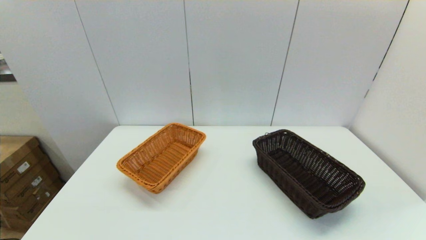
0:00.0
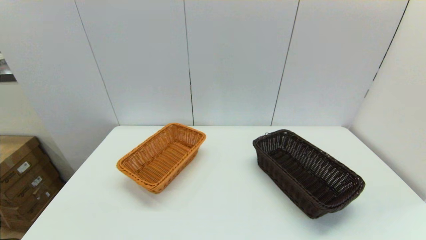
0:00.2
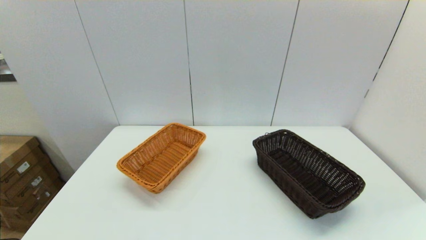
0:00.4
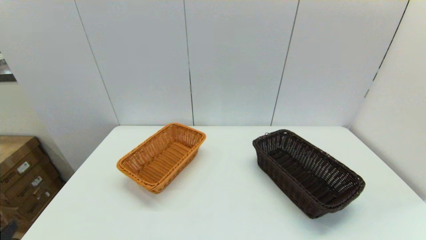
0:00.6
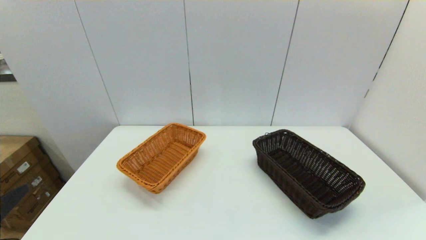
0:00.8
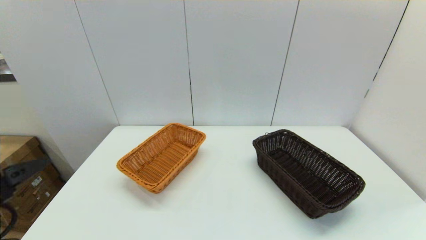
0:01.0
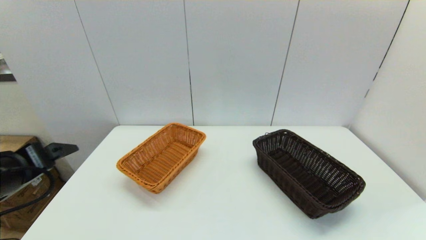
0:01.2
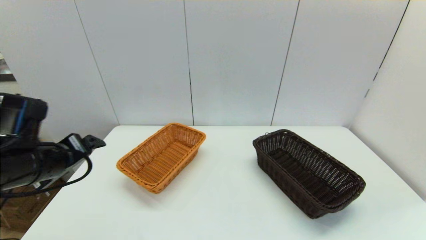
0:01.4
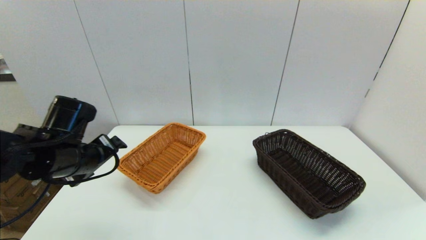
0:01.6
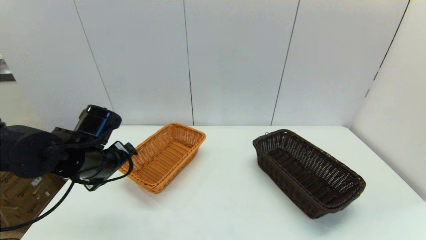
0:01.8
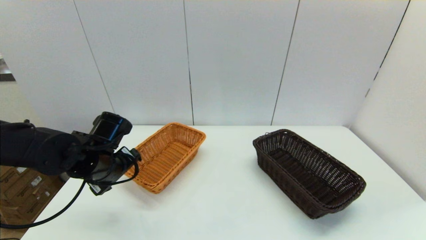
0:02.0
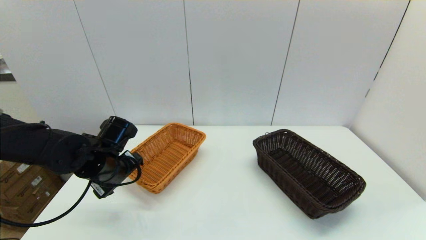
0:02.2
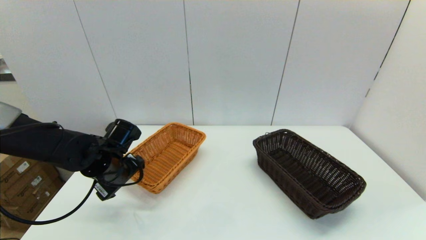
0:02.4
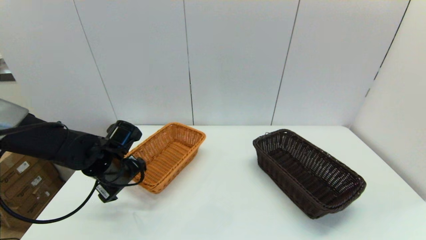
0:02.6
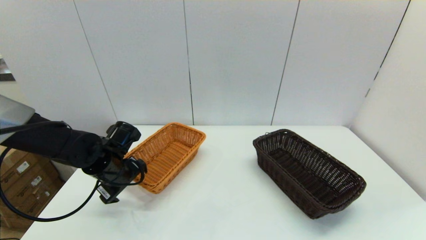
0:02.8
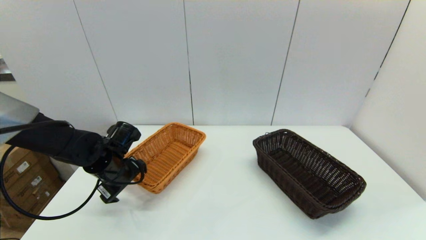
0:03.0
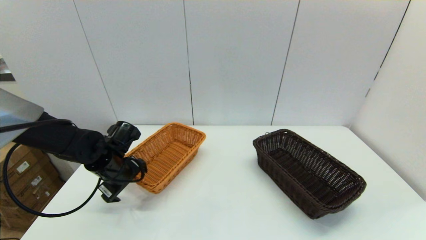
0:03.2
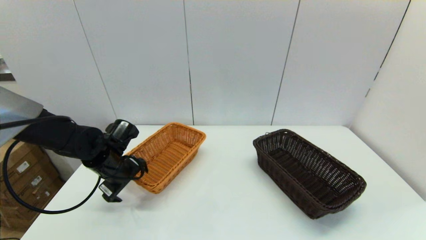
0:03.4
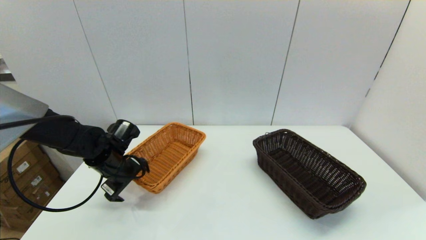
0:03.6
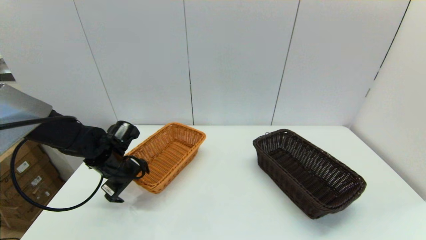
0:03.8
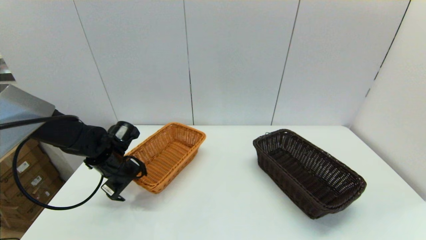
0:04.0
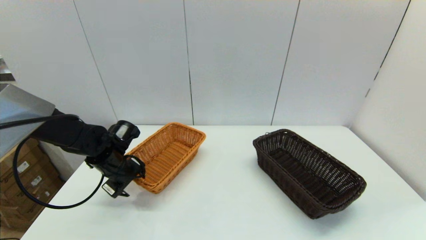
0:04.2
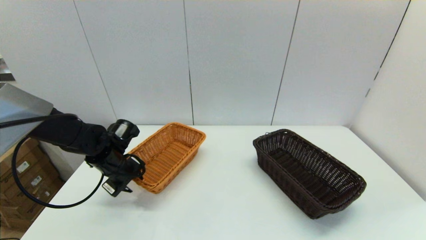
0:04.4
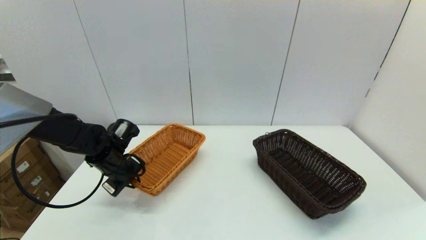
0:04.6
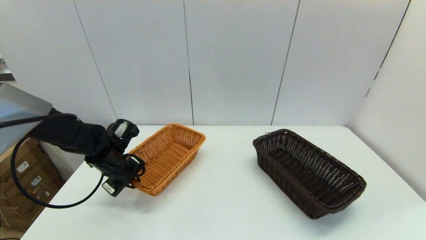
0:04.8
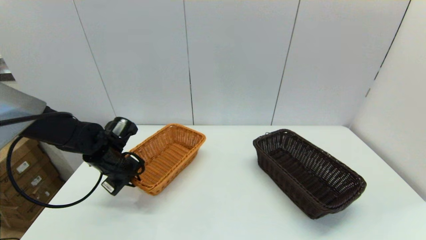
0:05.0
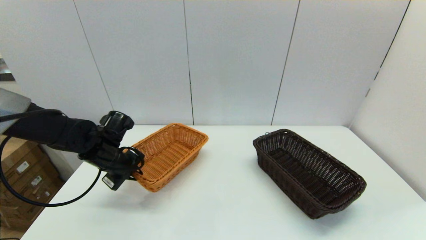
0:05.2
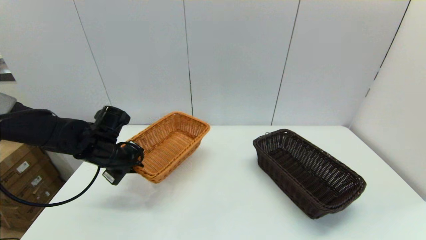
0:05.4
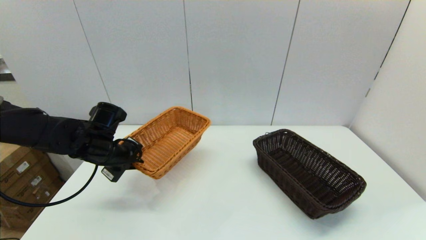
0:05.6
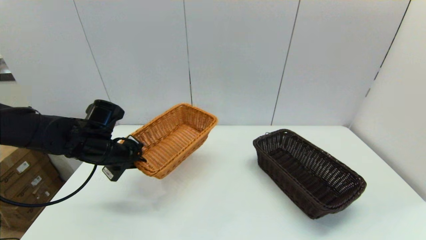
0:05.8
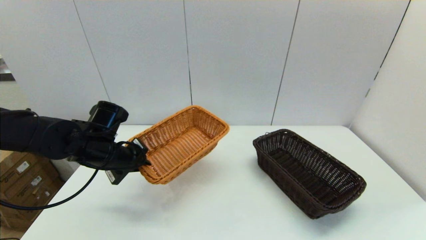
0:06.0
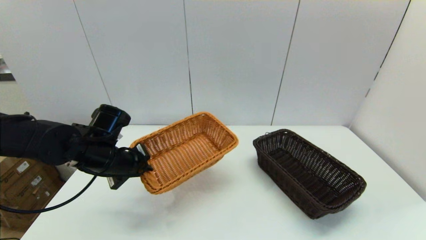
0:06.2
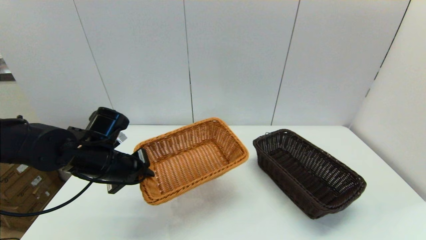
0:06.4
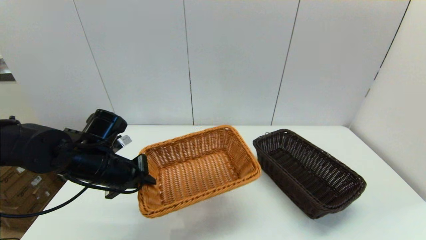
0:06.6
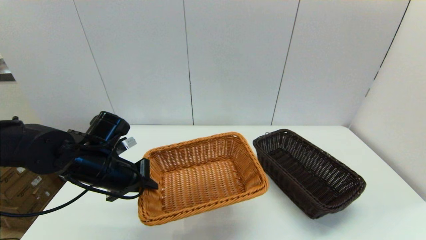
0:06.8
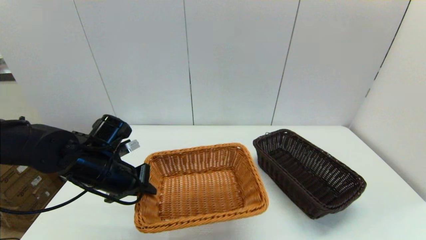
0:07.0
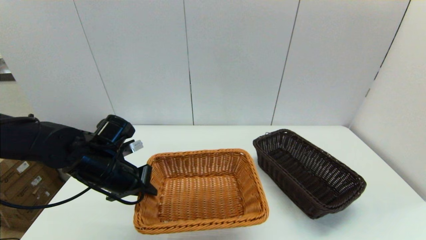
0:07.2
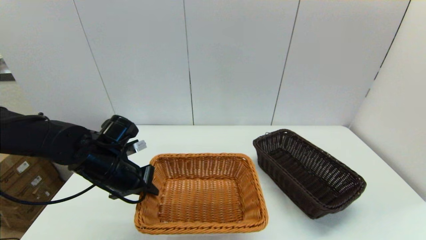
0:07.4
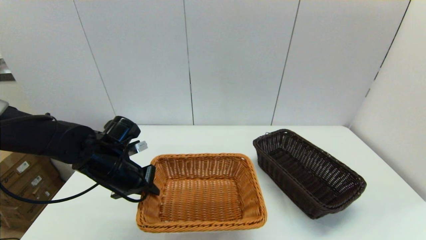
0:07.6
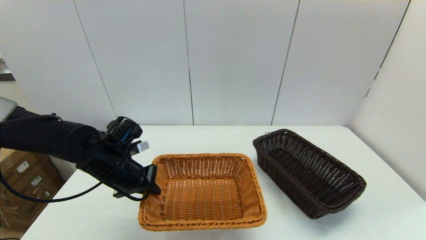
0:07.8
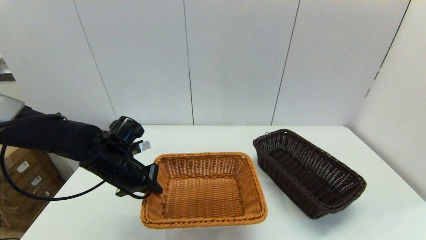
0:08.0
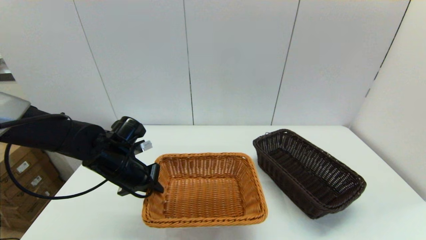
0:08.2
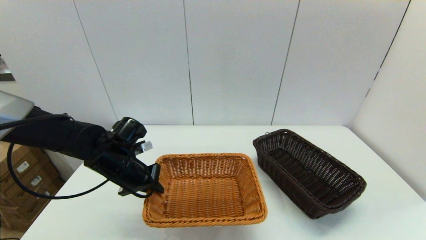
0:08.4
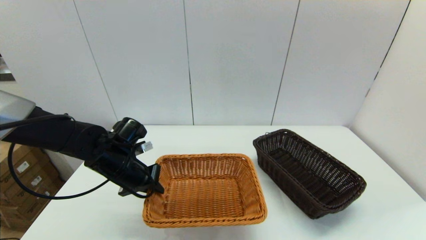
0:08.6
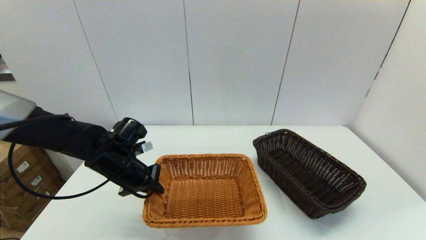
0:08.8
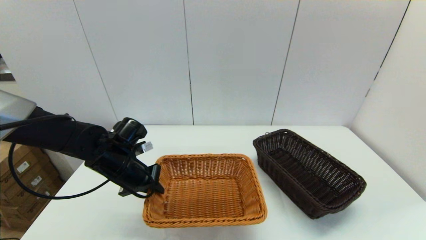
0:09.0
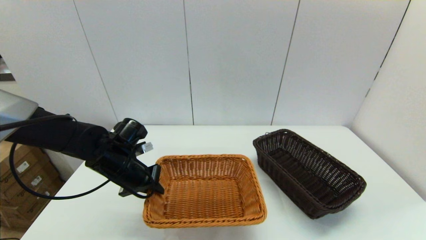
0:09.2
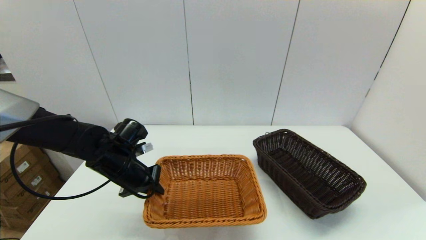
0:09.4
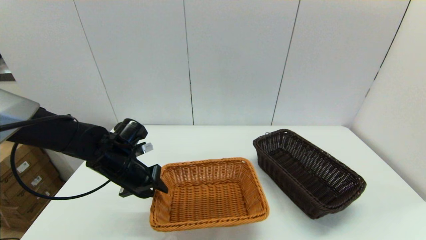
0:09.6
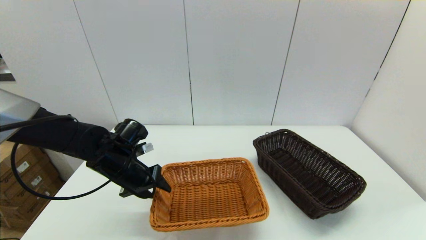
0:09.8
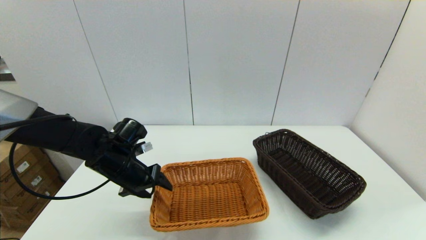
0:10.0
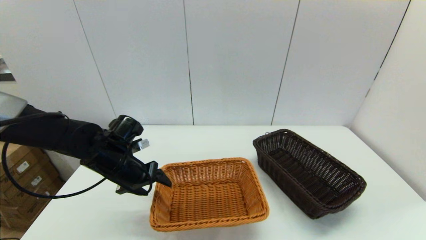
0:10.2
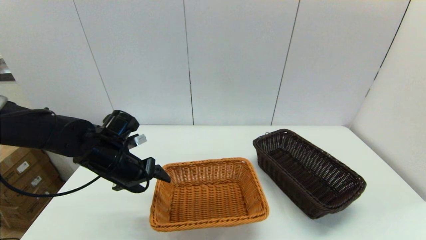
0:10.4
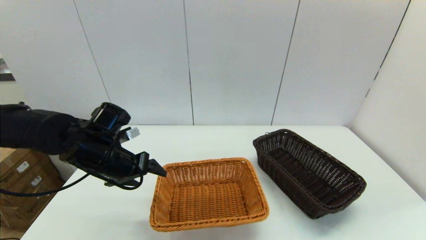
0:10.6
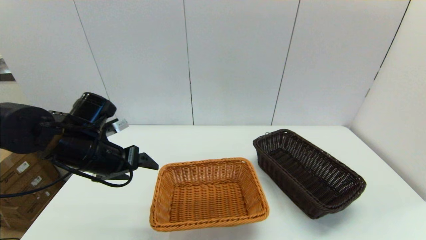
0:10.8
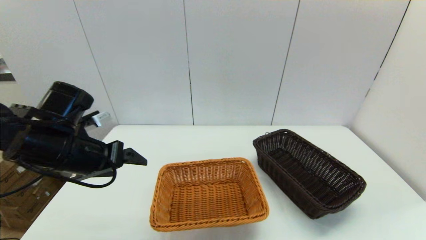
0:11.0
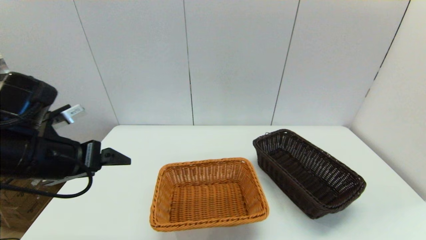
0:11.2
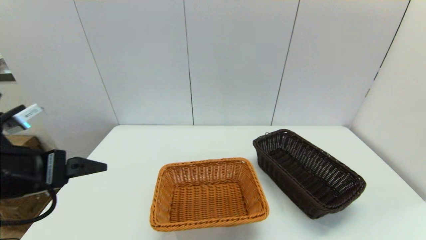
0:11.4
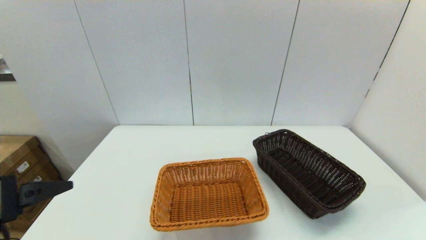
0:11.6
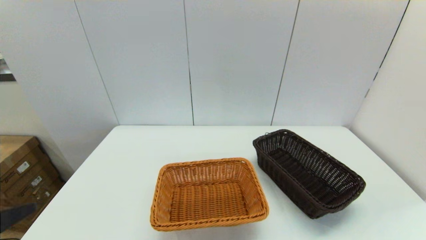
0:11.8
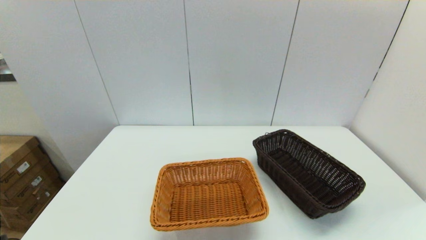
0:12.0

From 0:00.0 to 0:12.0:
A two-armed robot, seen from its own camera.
Task of the whole recording: stack a basket on top of another basket.
Step, from 0:00.0 to 0:04.8: Grasp the light basket with the left gripper.
Step, from 0:05.0 to 0:10.4: Place the light basket on the middle of the table with the left gripper.
From 0:00.0 to 0:01.6: The left gripper travels forward by approximately 25 cm.
From 0:01.6 to 0:03.0: The left gripper moves downward and forward, approximately 10 cm.
From 0:03.0 to 0:04.4: The left gripper closes its fingers.
From 0:04.4 to 0:06.0: The left gripper moves upward, some 5 cm.
From 0:07.6 to 0:09.0: There are only small adjustments of the grippers.
From 0:09.0 to 0:10.4: The left gripper opens.
From 0:10.4 to 0:12.0: The left gripper travels backward by about 30 cm.

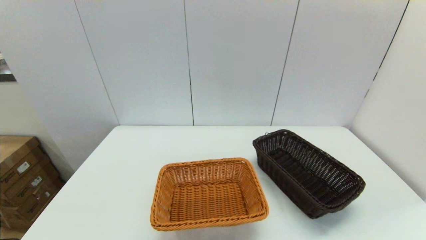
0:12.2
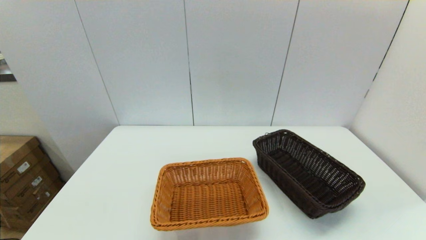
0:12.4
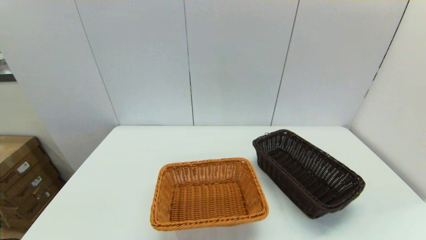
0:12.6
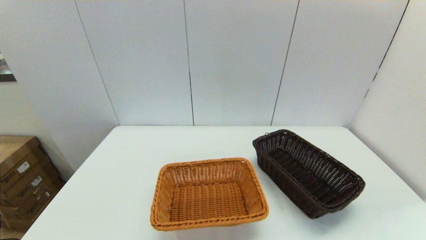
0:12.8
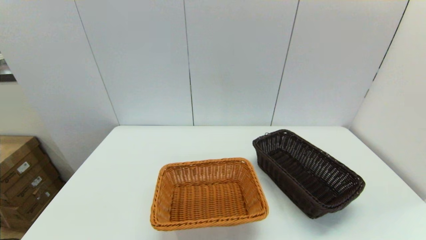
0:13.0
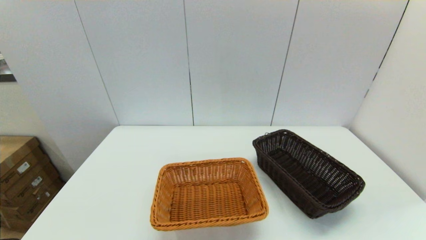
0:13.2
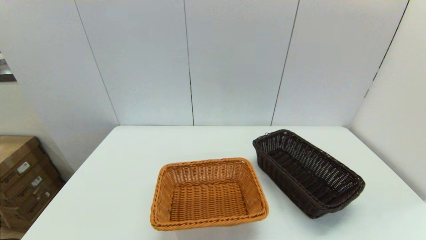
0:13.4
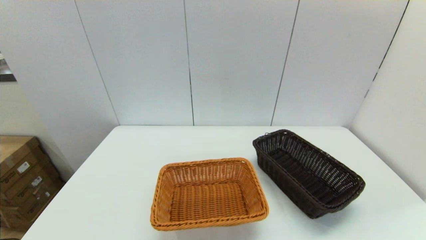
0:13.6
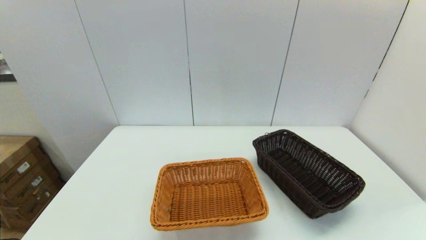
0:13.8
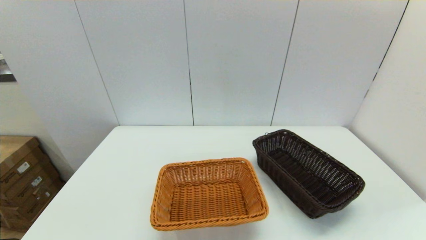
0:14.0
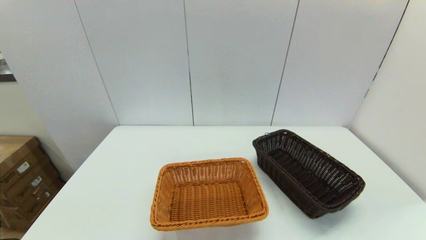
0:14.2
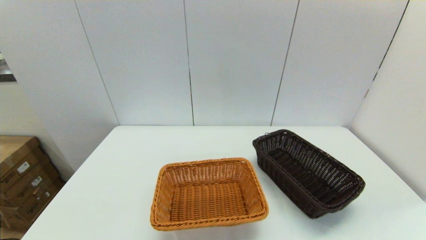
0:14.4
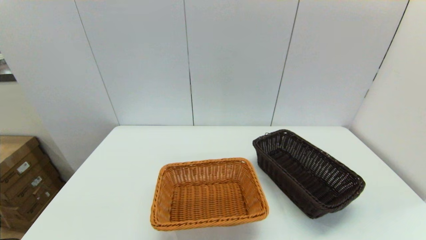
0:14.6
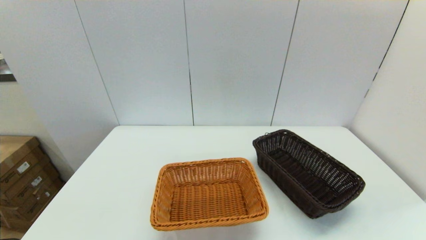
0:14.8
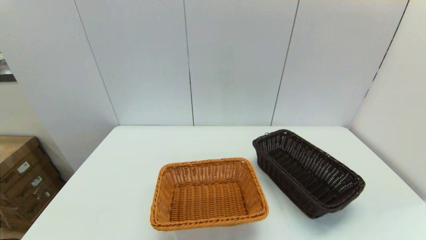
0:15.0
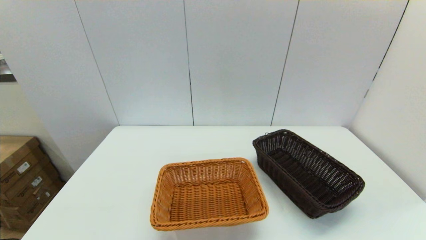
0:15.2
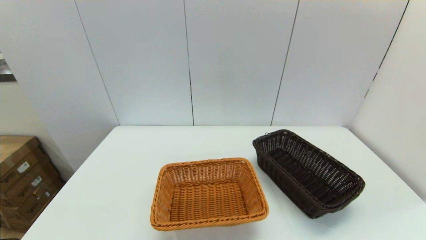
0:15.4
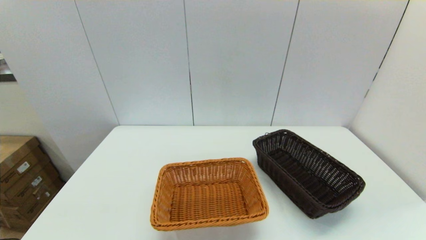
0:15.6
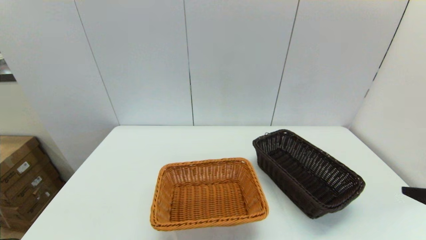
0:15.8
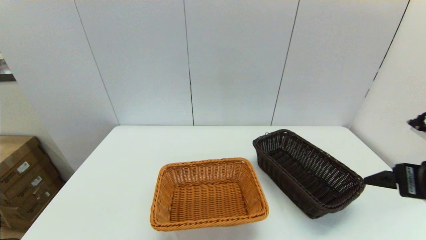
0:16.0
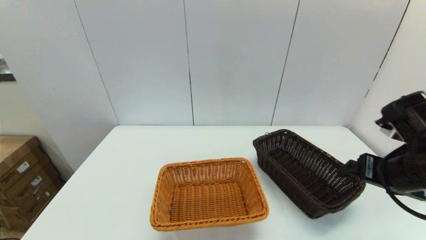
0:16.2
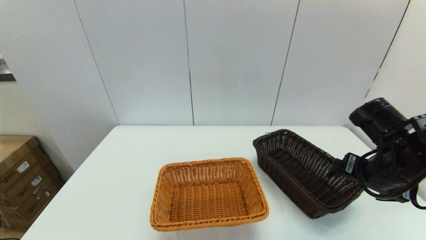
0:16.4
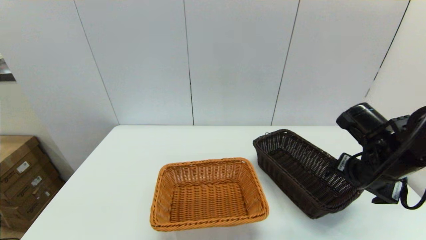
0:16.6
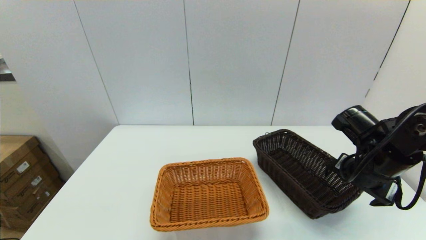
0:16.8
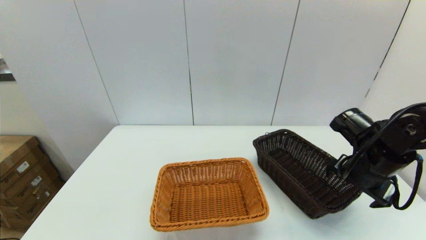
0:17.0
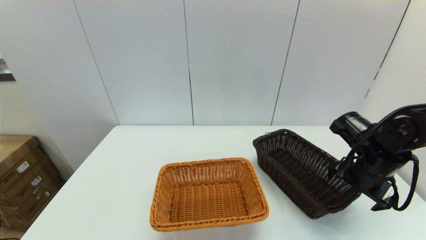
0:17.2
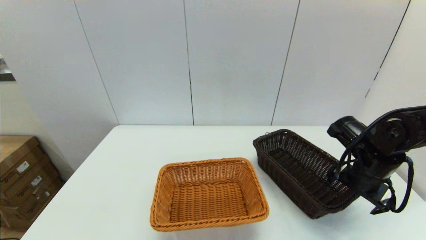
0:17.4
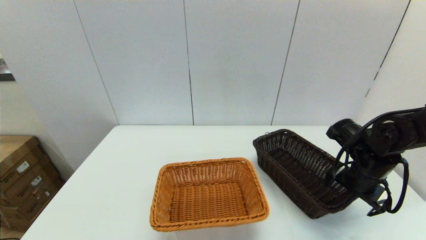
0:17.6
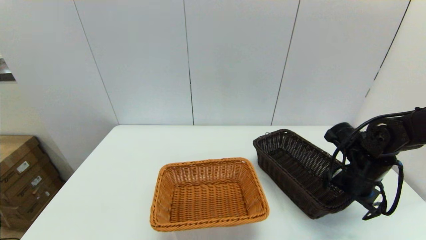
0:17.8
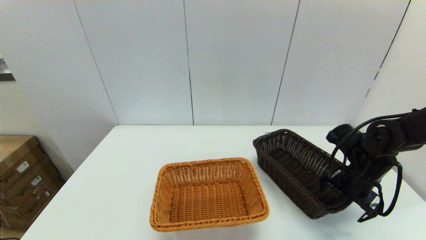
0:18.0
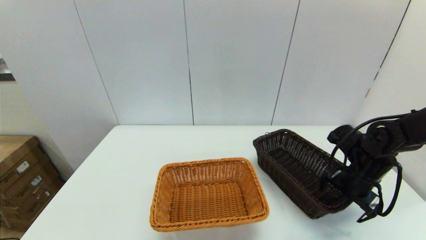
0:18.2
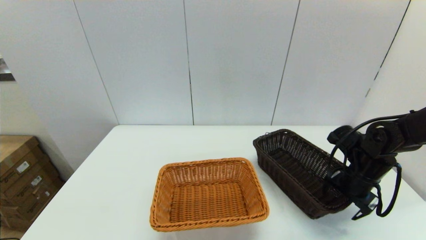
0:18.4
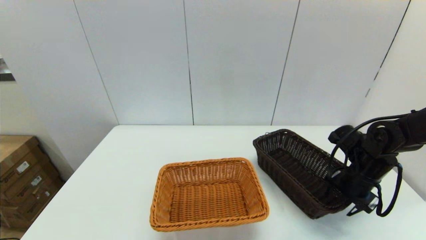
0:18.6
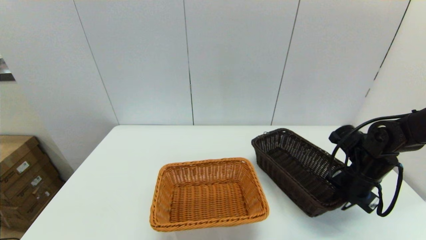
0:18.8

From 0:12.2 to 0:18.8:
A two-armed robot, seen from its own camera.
Task of the whole recording: stack a basket on top of another basket.
Step, from 0:12.2 to 0:18.8: Grasp the dark basket with the right gripper.
From 0:15.4 to 0:17.2: The right gripper travels forward by about 25 cm.
From 0:17.2 to 0:18.8: The right gripper shifts by about 5 cm, and closes.
